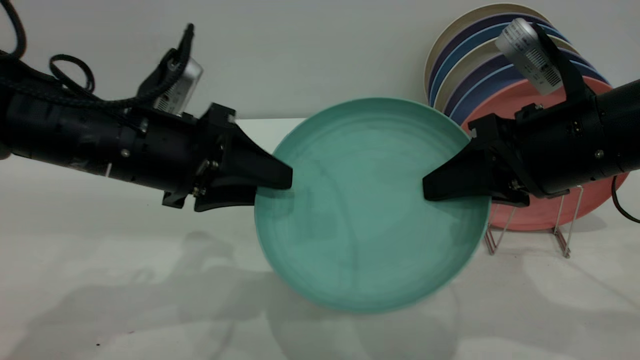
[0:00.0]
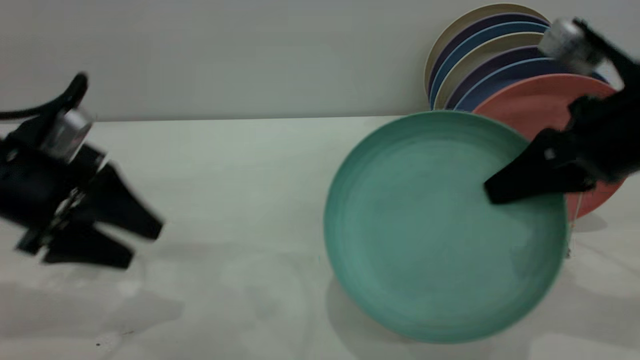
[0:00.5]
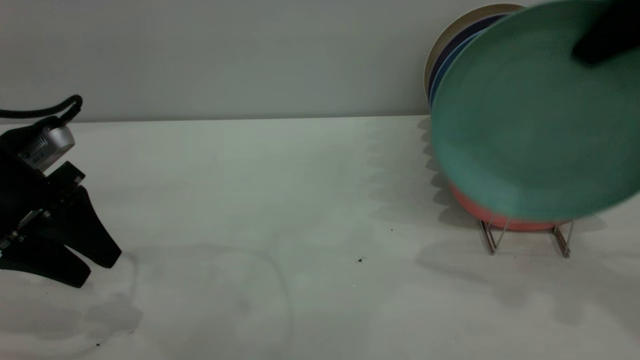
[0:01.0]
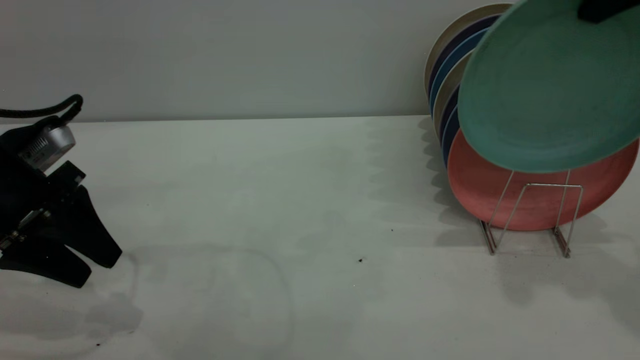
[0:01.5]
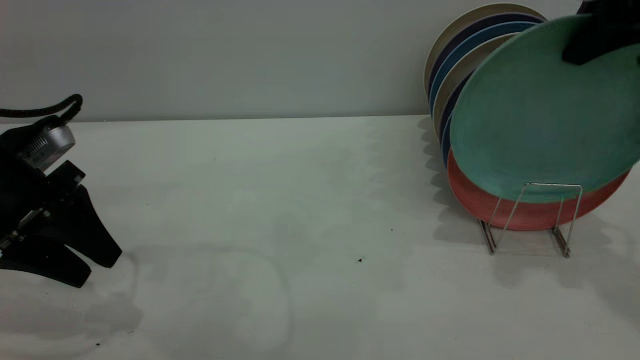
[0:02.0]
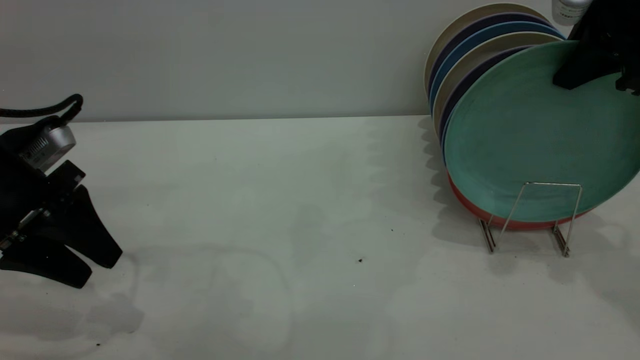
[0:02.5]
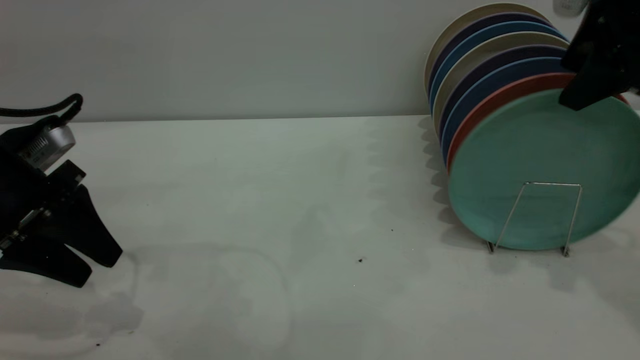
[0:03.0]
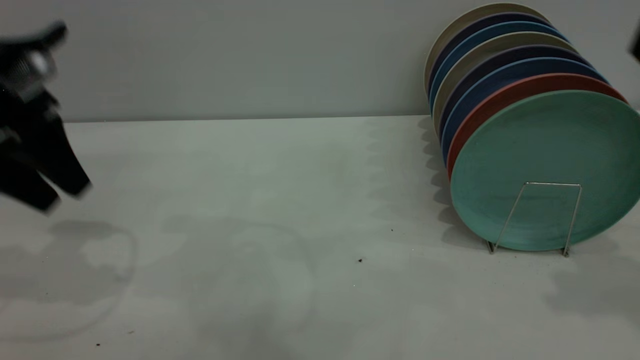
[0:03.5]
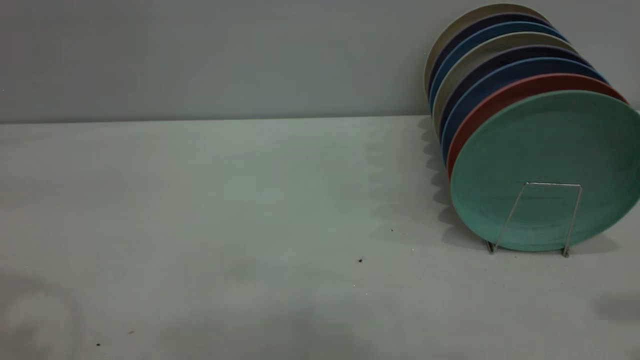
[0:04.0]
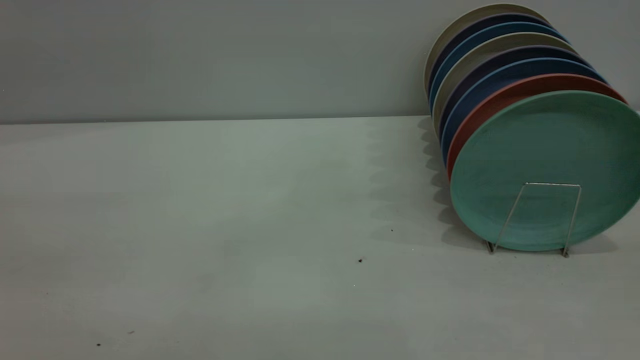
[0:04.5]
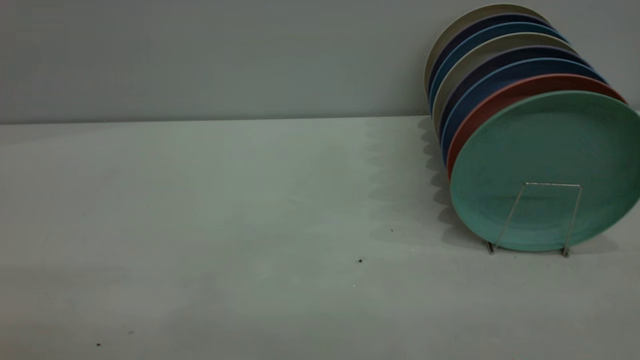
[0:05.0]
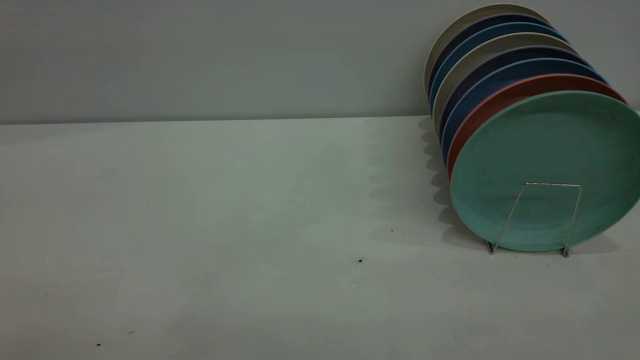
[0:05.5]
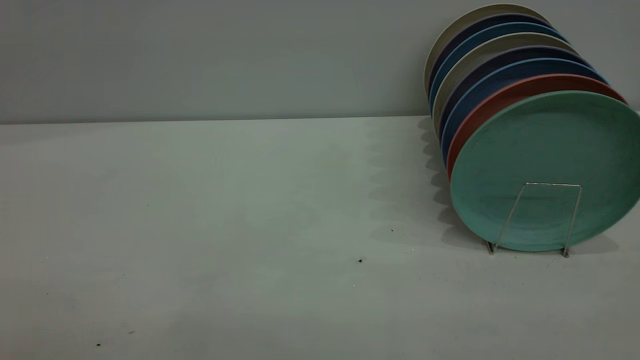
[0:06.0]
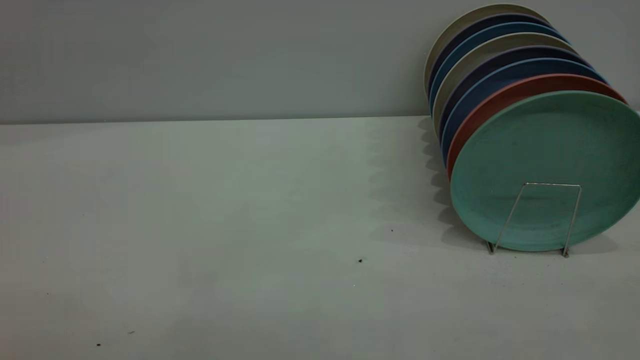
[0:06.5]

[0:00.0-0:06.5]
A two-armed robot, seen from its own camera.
Task of the whole recording: the left gripper grasp the green plate, the left gripper pass the green plate to the right gripper, and the right gripper place the green plate on the plate rack.
Step, 0:00.5 to 0:03.0: Place the plate on the shelf.
0:00.0 to 0:02.0: The left gripper shifts roughly 15 cm to the left. Meanwhile the right gripper goes some 15 cm upward, forward and to the right.
0:02.0 to 0:04.5: The right gripper heads backward, covering about 30 cm, and opens its fingers. The left gripper heads upward and backward, covering about 30 cm.
